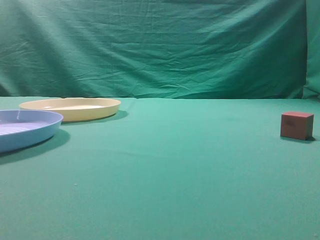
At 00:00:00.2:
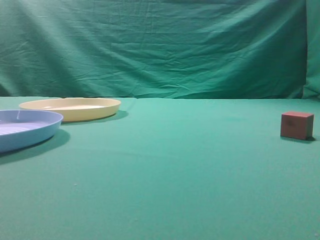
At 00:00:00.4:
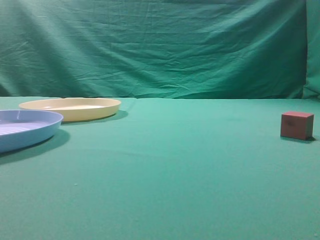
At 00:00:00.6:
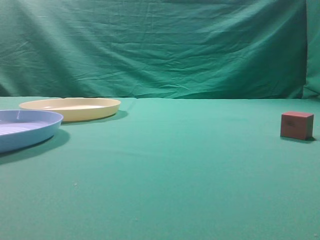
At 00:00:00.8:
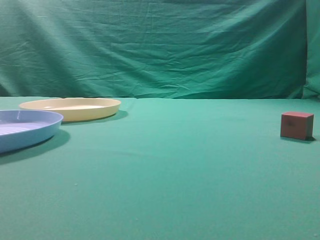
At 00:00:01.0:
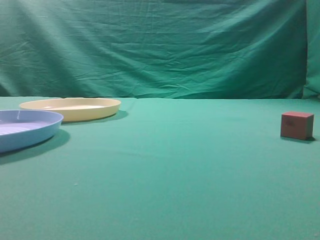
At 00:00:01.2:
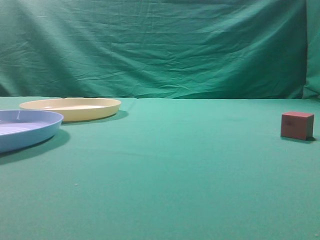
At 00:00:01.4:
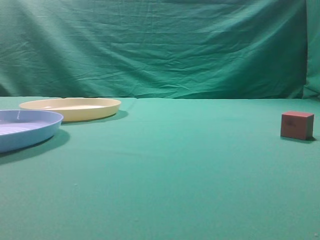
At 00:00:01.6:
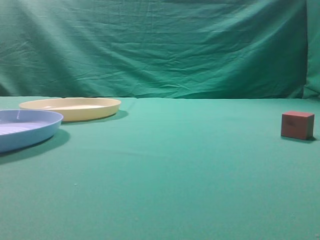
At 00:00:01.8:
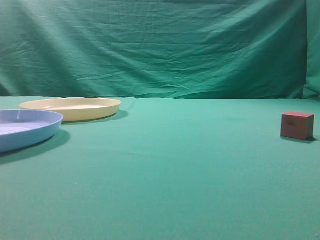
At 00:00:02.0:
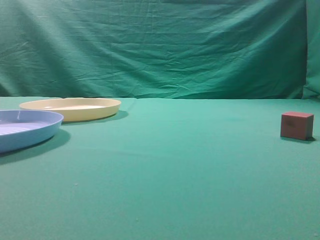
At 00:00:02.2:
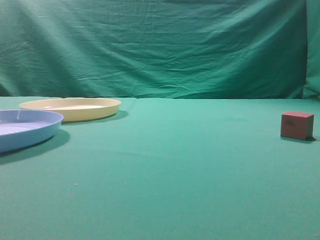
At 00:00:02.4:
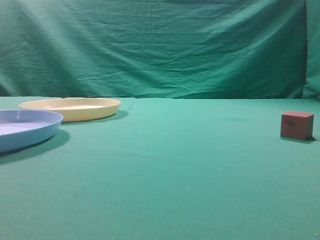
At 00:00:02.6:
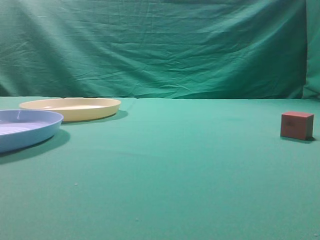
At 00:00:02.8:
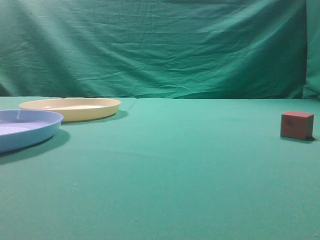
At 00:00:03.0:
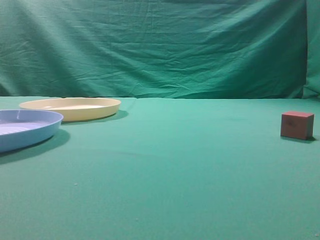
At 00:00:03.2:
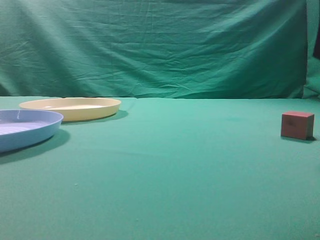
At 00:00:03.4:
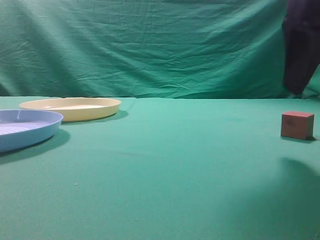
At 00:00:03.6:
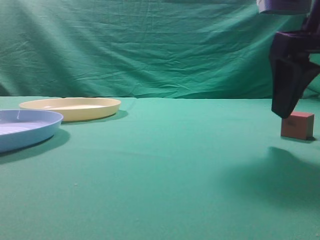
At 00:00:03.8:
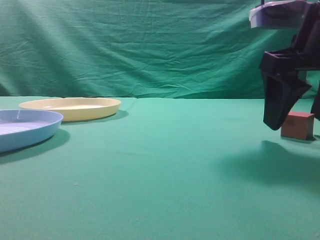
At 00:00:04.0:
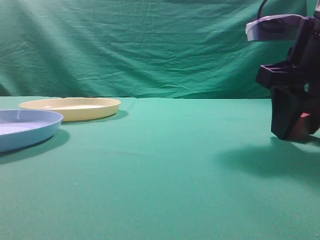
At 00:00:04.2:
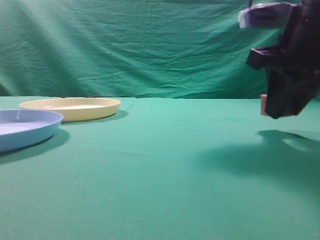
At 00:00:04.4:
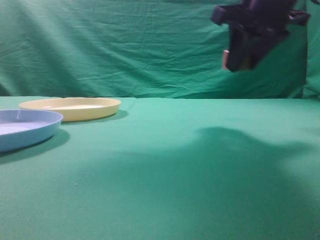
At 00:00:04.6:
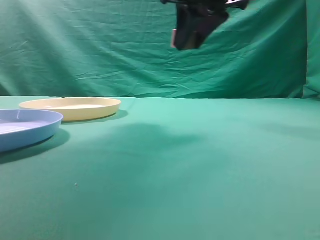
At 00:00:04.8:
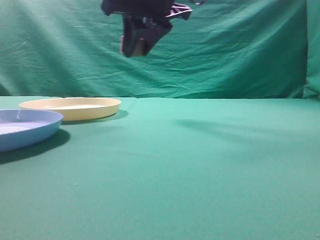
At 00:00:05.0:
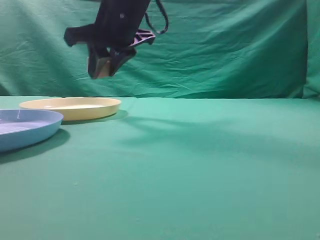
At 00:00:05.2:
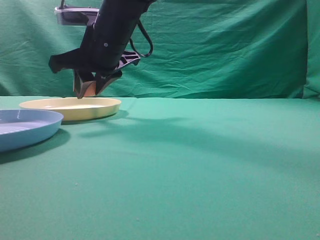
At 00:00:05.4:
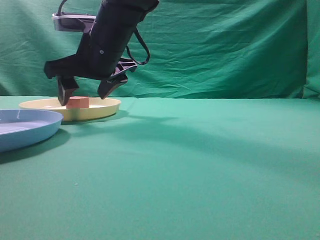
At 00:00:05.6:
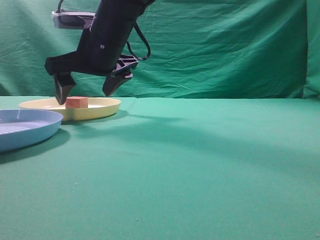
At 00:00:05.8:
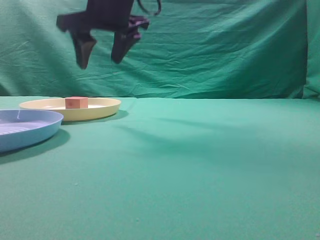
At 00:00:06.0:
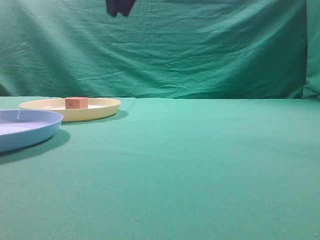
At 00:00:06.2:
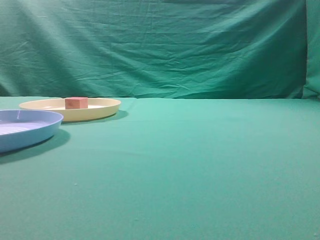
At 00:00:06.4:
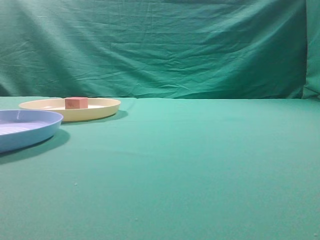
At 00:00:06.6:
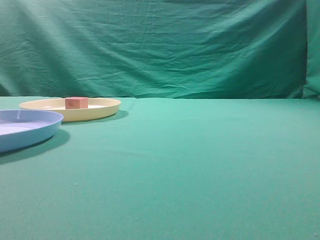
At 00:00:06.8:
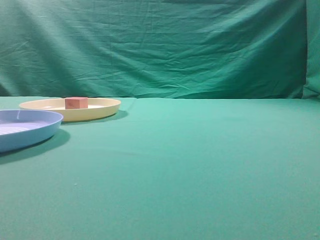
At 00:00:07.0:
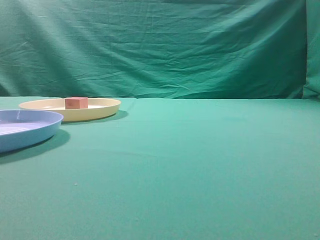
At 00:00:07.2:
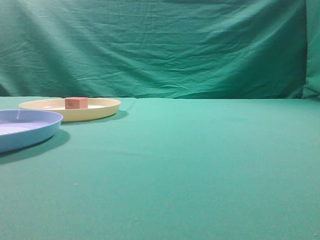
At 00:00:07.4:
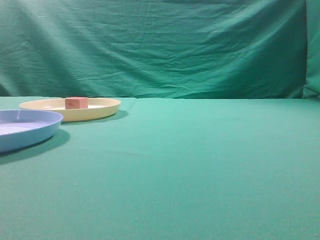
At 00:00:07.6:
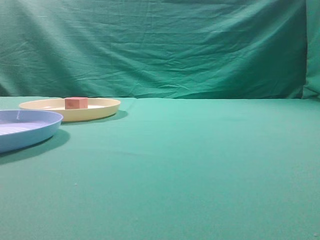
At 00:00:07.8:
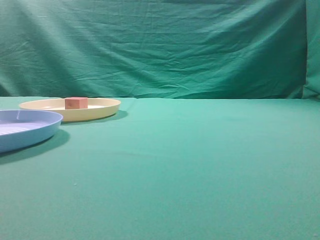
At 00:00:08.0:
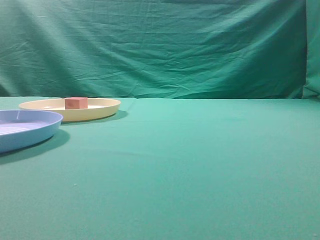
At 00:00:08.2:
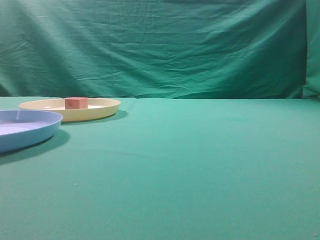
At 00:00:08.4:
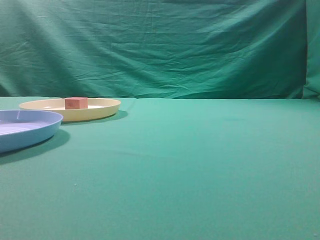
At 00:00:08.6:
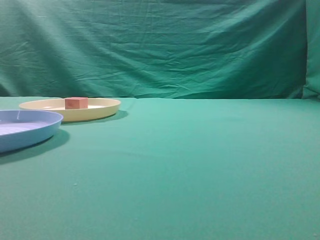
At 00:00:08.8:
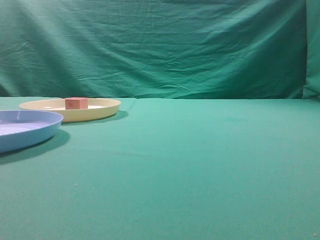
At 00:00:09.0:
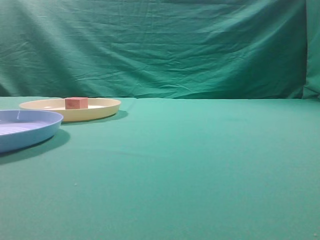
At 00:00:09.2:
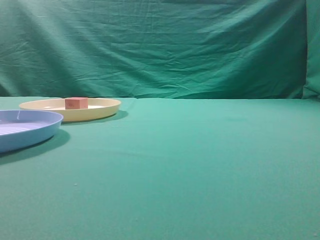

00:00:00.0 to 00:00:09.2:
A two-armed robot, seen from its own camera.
Task of the whole recording: pick up the cube block from the table and put it on the plate.
Step, 00:00:00.0 to 00:00:04.2: Grasp the small cube on the table.
Step, 00:00:04.4 to 00:00:05.6: Place it into the yellow plate.
00:00:03.0 to 00:00:04.6: The right gripper travels to the left and forward by some 20 cm, and opens its fingers.
00:00:04.6 to 00:00:06.2: The right gripper heads upward and to the left, covering about 15 cm, and closes.
